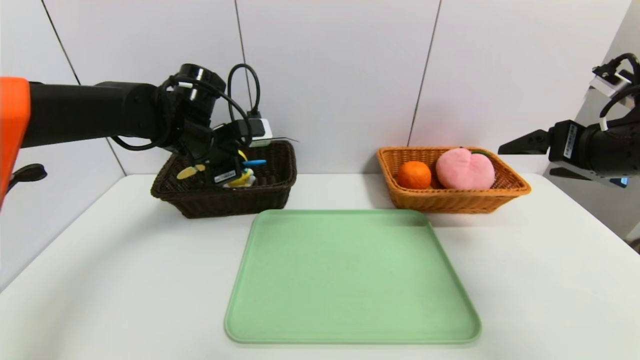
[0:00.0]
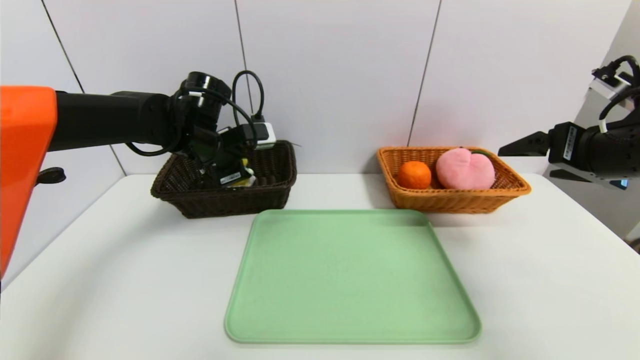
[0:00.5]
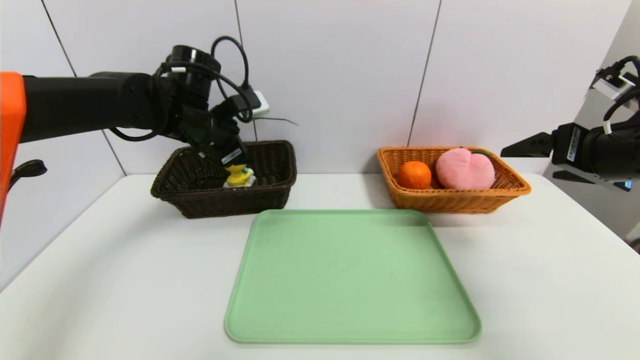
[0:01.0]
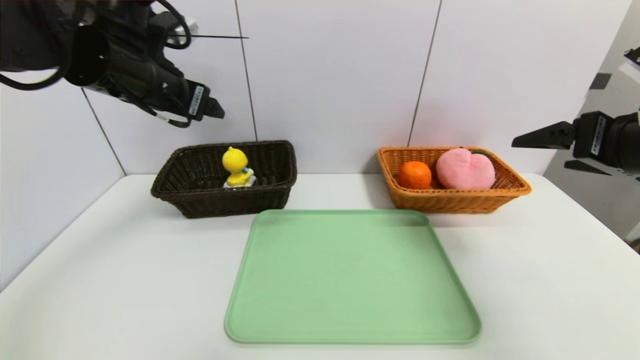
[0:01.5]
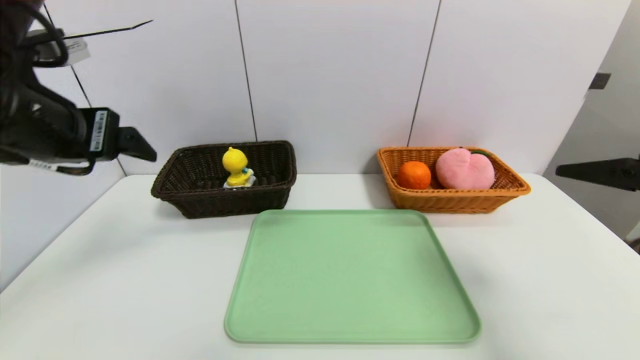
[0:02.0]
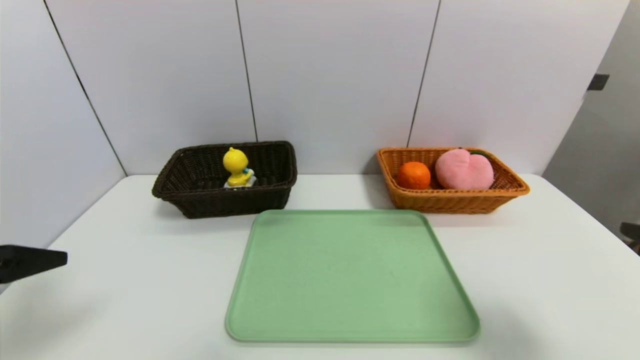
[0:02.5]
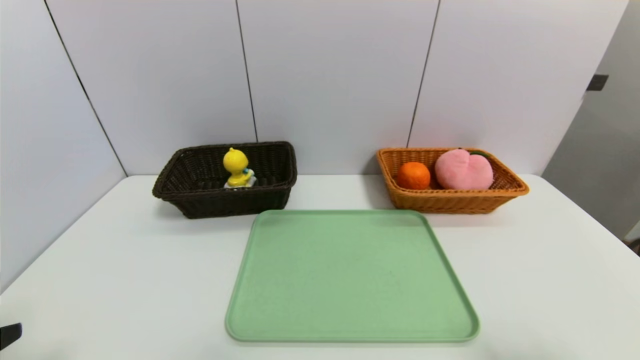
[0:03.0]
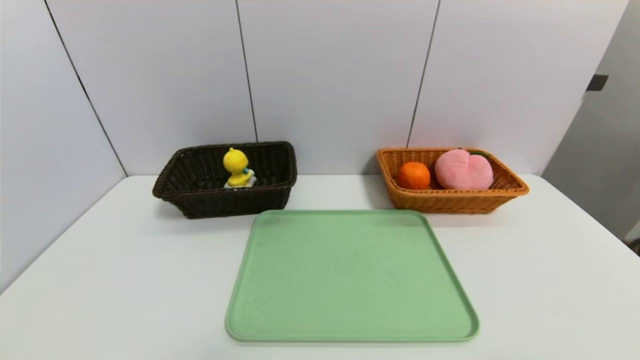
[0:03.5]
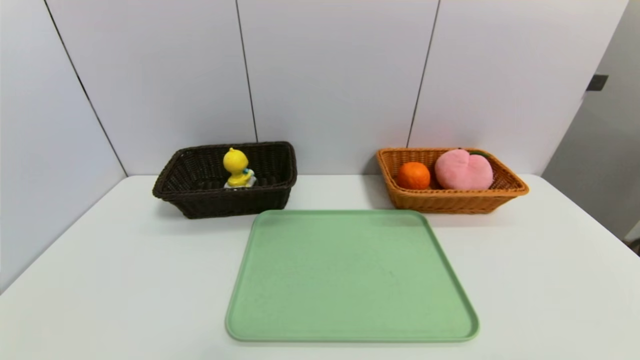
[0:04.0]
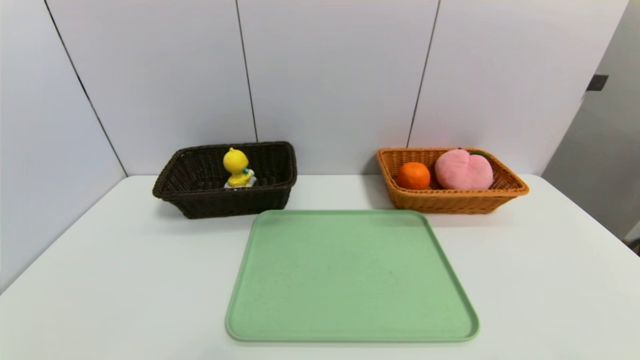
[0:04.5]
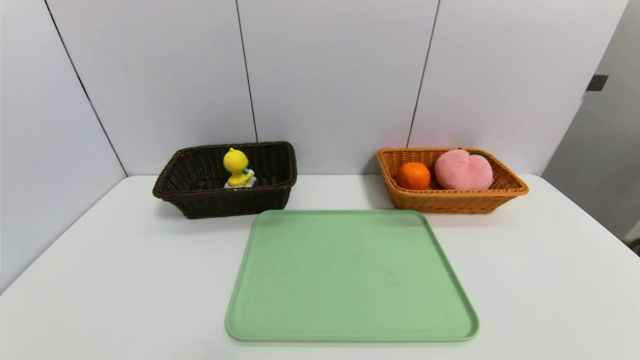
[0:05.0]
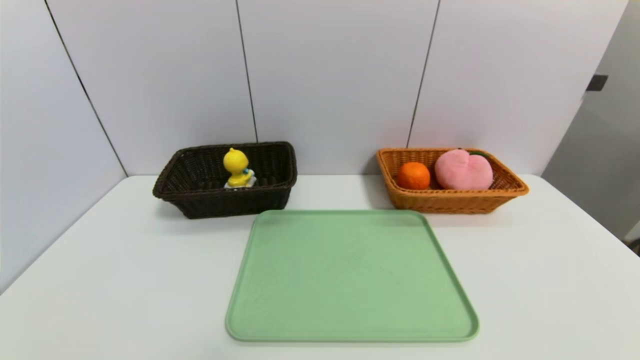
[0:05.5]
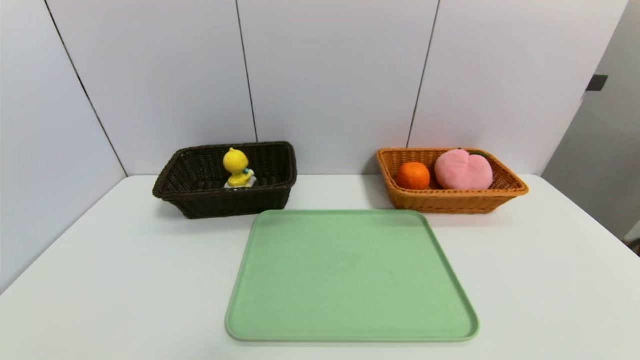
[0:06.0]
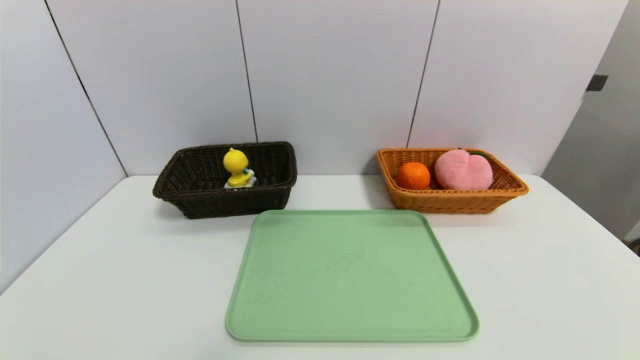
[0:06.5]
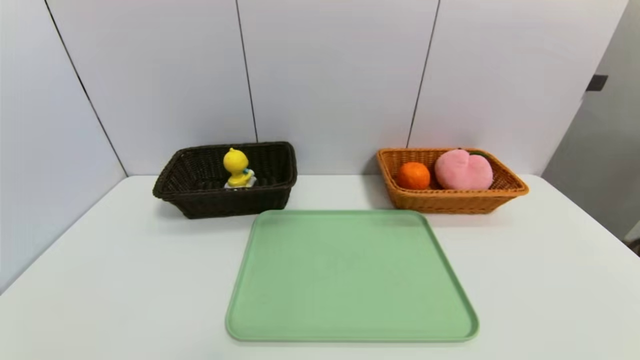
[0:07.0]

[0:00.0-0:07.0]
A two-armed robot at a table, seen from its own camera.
Task of the whole recording: place the food in the right basket with the right gripper, and place the non food items in the left basket with the left gripper.
0:00.0 to 0:02.0: The right gripper heads backward, covering about 10 cm. The left gripper moves backward and upward, roughly 20 cm, and opens.
0:02.0 to 0:03.5: Both grippers move backward and downward, roughly 20 cm.

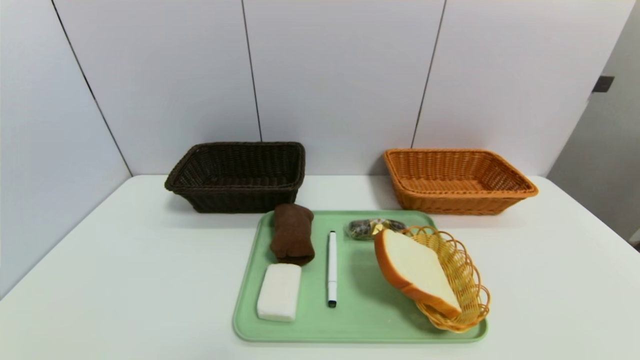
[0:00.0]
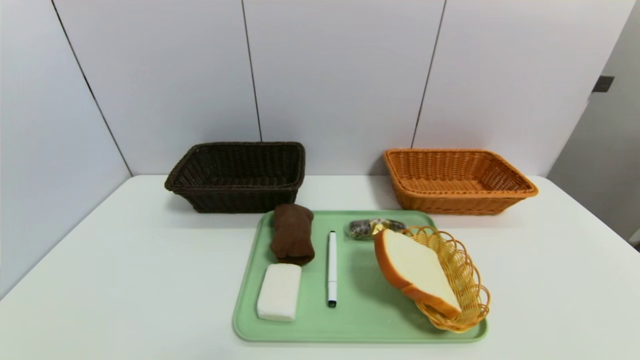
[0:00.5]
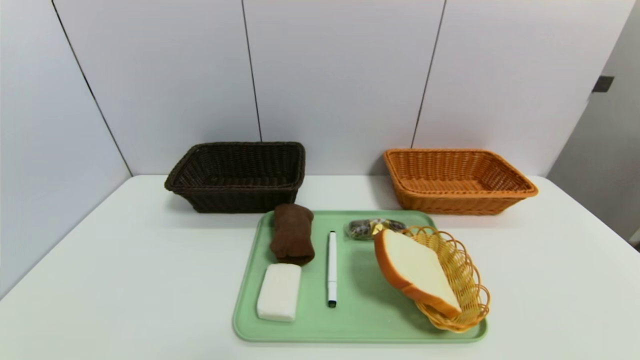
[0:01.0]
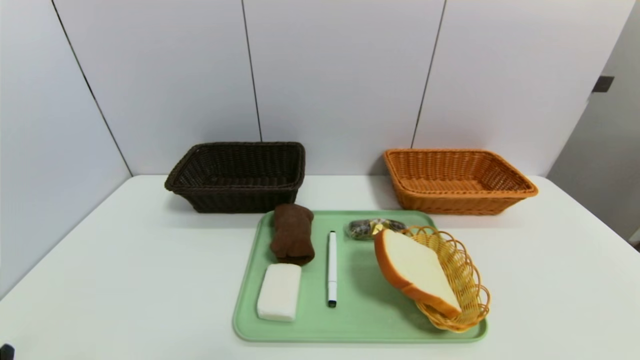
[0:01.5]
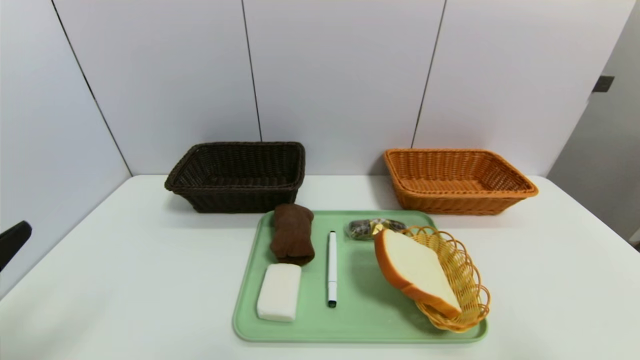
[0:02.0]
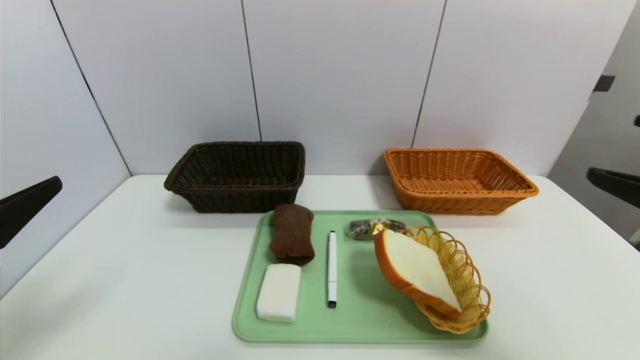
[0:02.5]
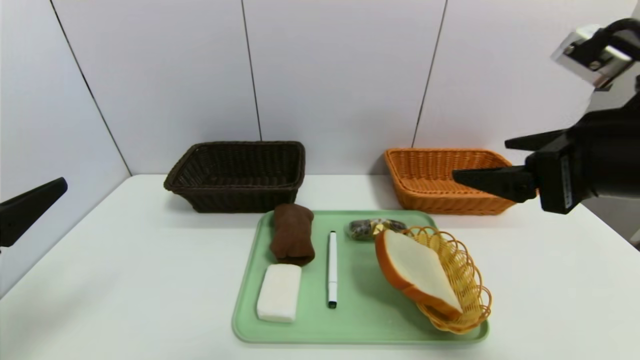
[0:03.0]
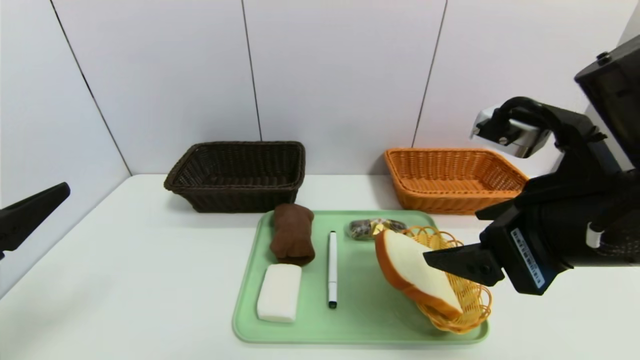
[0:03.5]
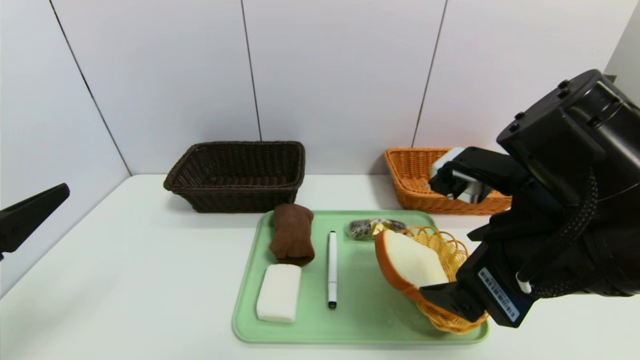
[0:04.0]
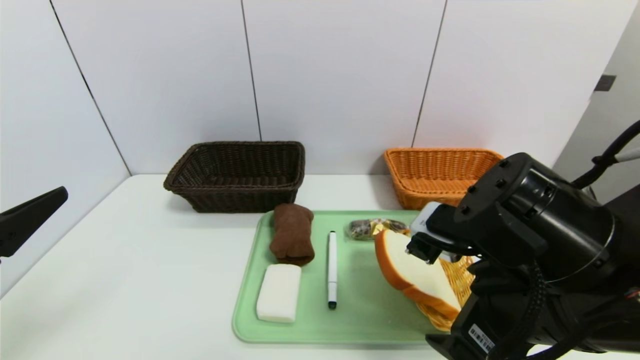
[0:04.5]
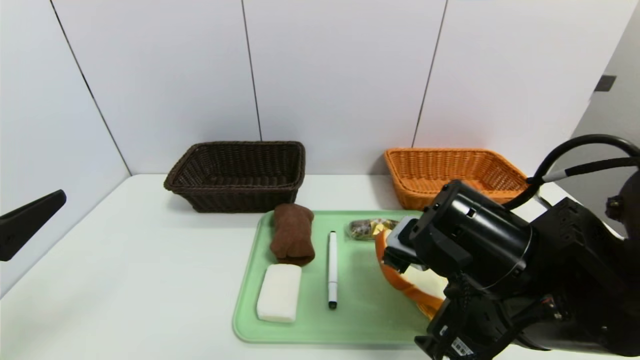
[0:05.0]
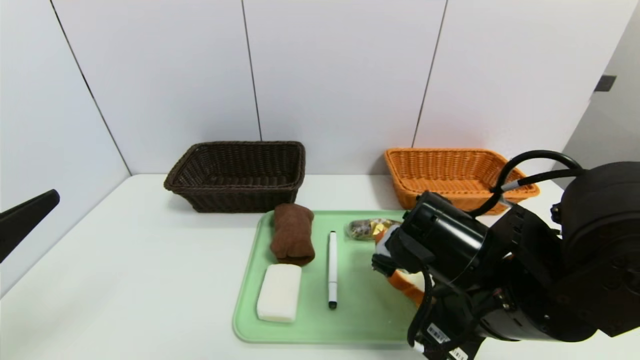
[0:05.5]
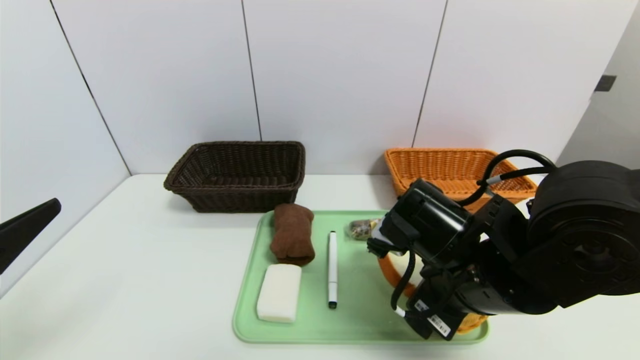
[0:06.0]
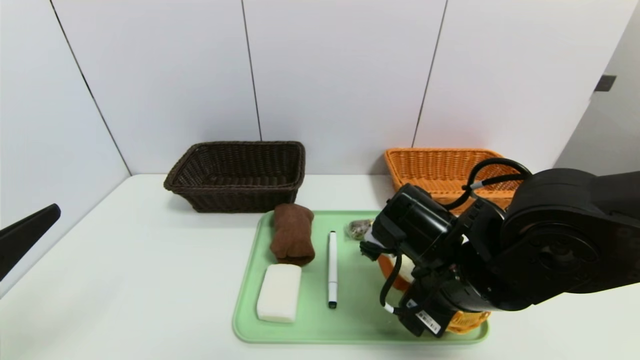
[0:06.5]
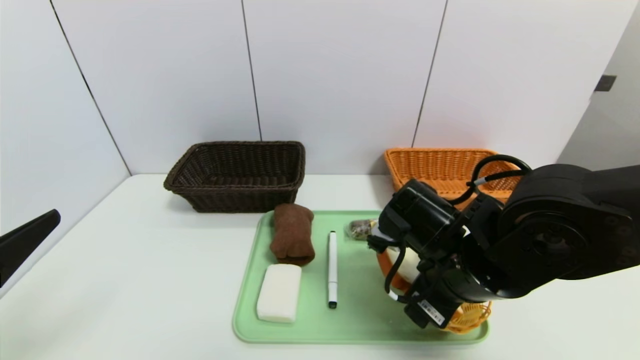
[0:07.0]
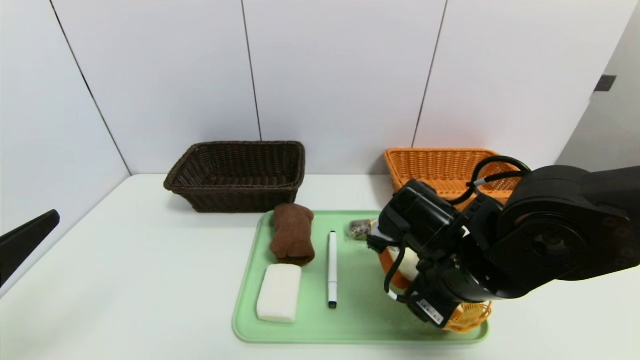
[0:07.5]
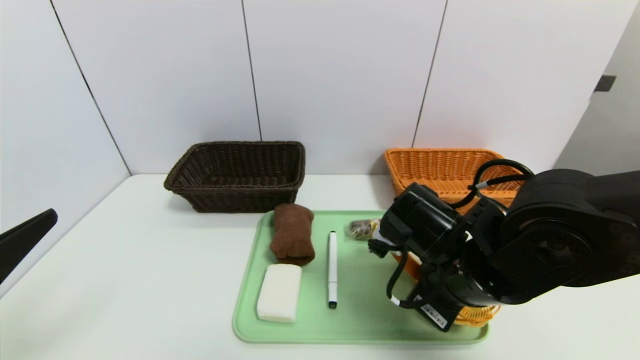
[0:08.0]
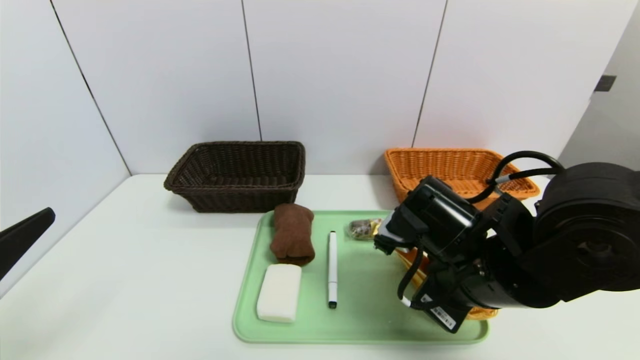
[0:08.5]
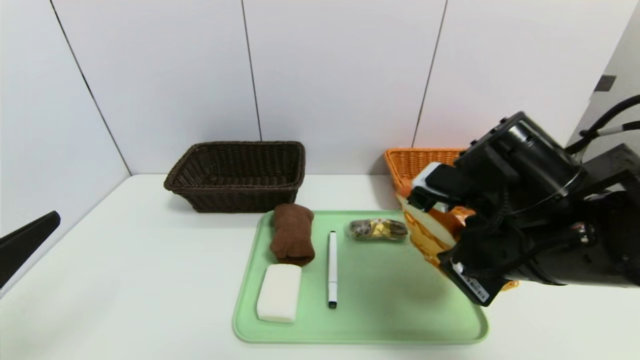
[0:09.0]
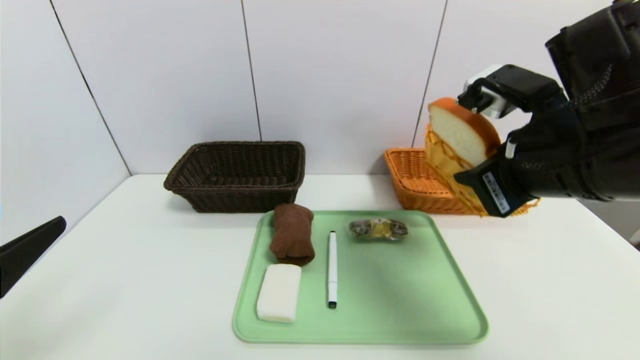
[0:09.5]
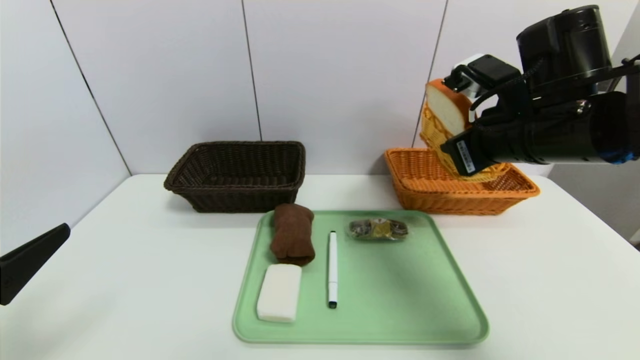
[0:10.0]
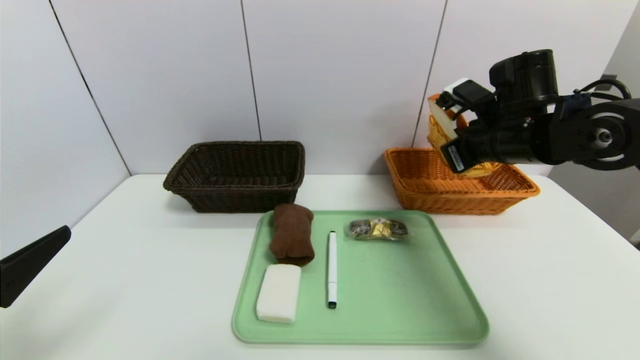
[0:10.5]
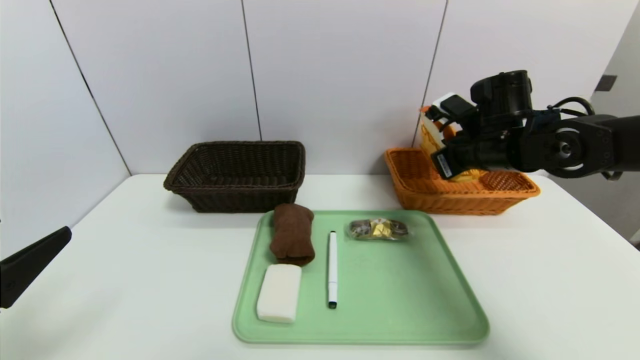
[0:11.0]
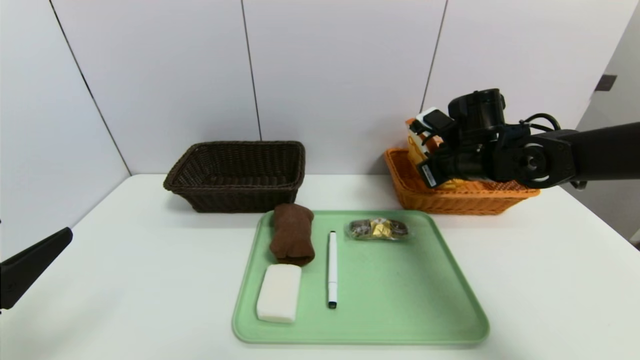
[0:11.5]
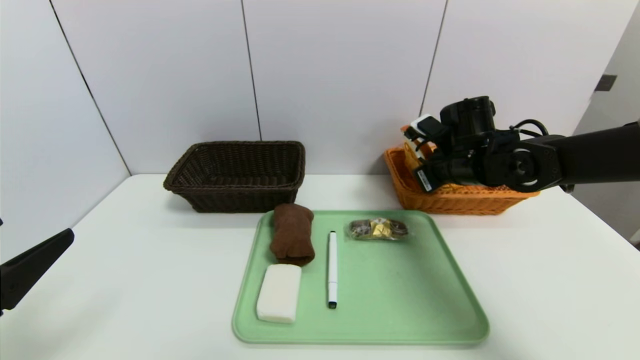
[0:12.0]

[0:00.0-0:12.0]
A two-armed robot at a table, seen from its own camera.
Task of the whole recording: place the food in the right basket with the right gripper, and place the non food items in the left basket with the left gripper.
0:00.0 to 0:02.0: The left gripper heads upward and forward, covering approximately 15 cm.
0:02.0 to 0:04.0: The right gripper is displaced to the left and forward by roughly 20 cm.
0:04.0 to 0:06.0: The right gripper travels downward by roughly 10 cm.
0:06.0 to 0:08.0: The right gripper closes.
0:08.0 to 0:10.0: The right gripper goes approximately 15 cm upward, to the right and forward.
0:10.0 to 0:12.0: The right gripper shifts roughly 15 cm forward and downward.

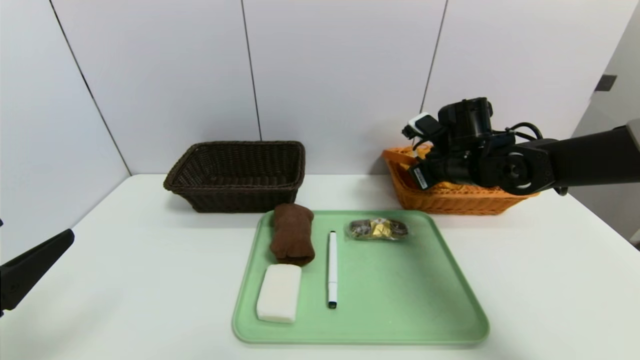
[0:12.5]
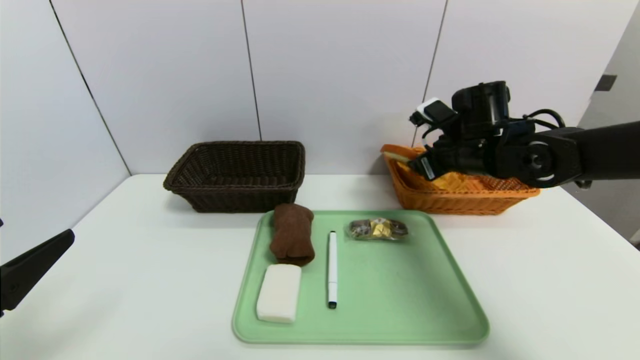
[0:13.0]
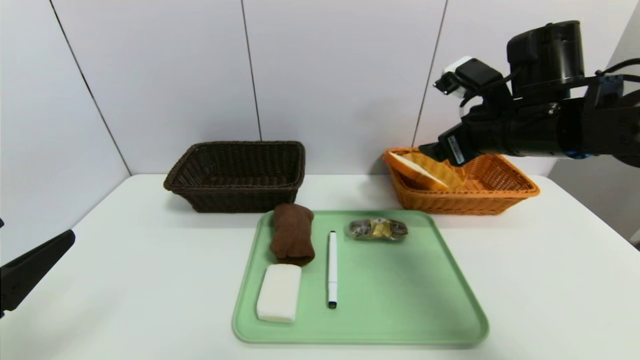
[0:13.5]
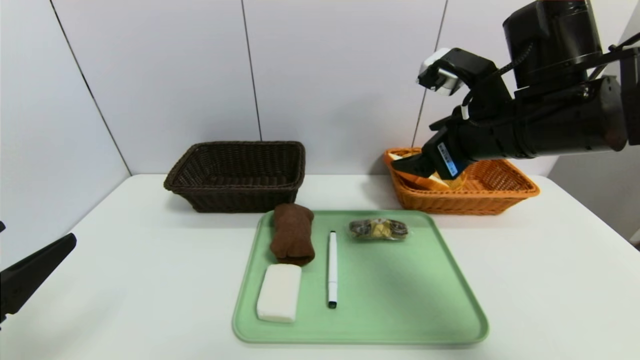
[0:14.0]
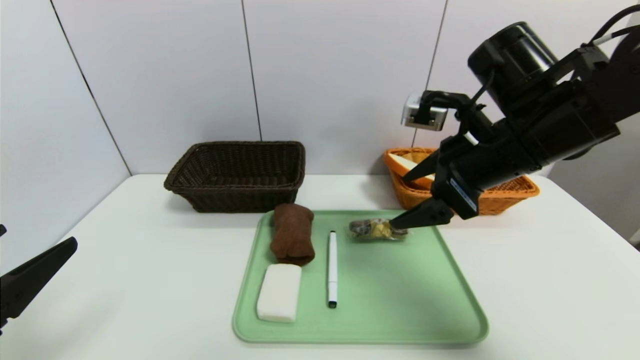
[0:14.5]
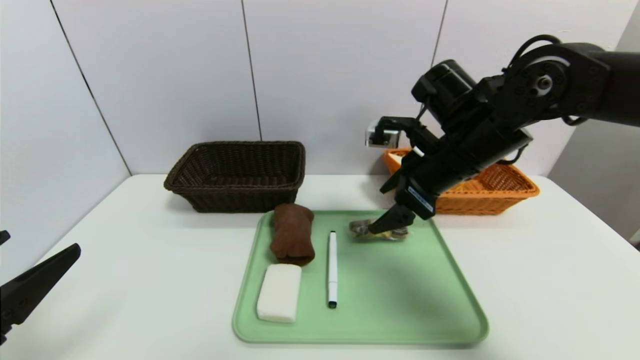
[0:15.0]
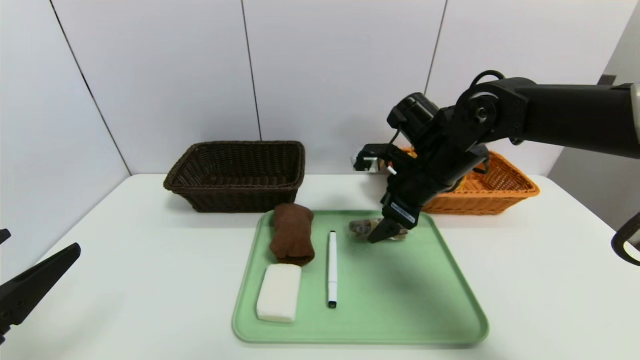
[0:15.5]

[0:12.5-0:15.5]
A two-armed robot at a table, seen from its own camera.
Task of the whole recording: place the food in the right basket with the right gripper, and place the non food items in the left basket with the left gripper.
0:12.5 to 0:14.0: The right gripper is displaced backward and upward by roughly 15 cm, and opens its fingers.
0:14.0 to 0:15.5: The right gripper shifts approximately 10 cm downward and forward.
